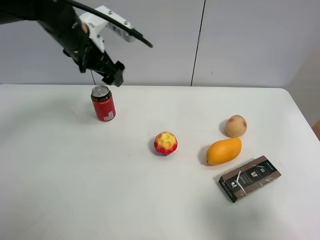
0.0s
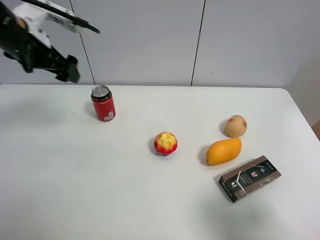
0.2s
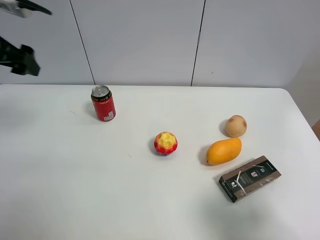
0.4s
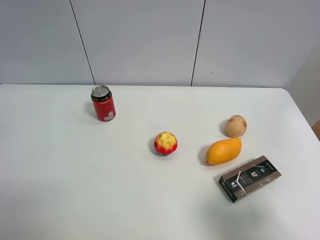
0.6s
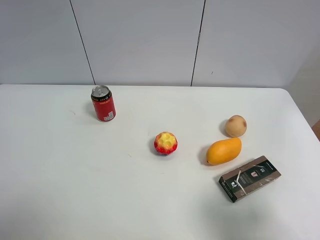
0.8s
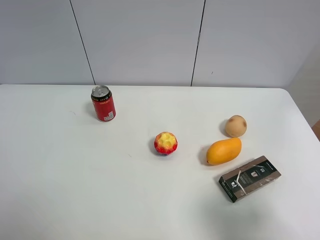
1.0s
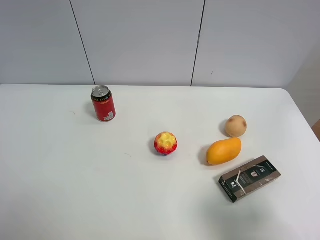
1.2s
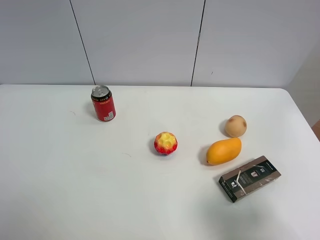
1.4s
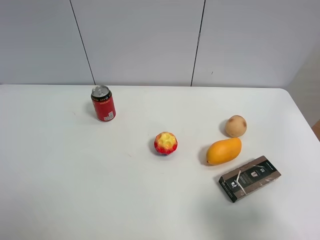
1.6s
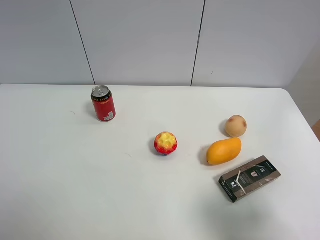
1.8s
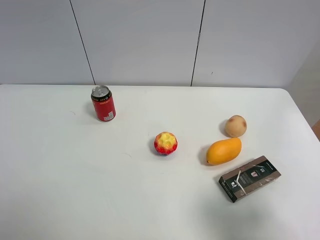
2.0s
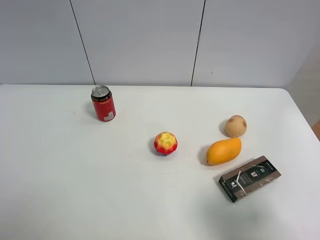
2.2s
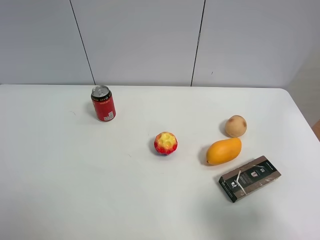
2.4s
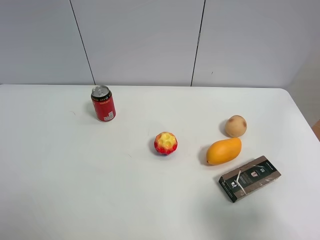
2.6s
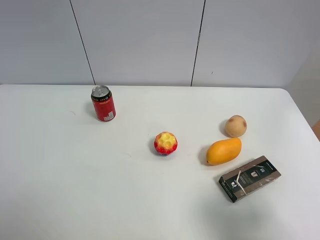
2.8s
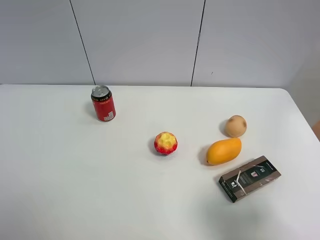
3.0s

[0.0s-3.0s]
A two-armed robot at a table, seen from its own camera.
Task of the whole recording: the gripper move the object.
0.0s to 1.6s: The left gripper moves backward and to the left, roughly 40 cm.
1.6s to 3.0s: Both grippers stay put.

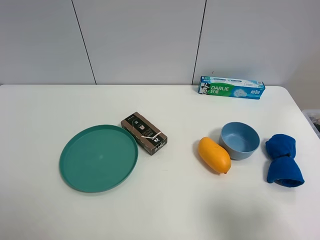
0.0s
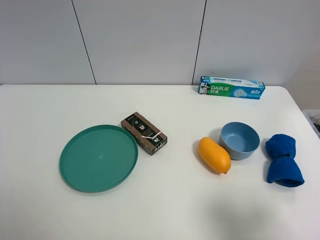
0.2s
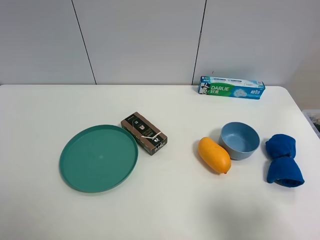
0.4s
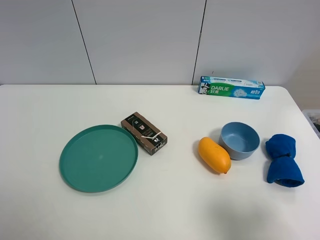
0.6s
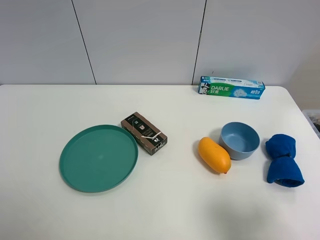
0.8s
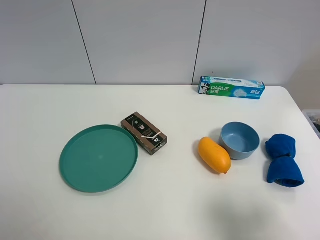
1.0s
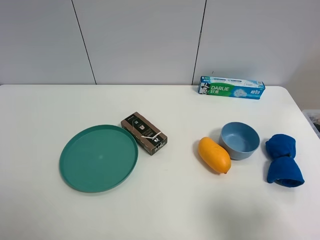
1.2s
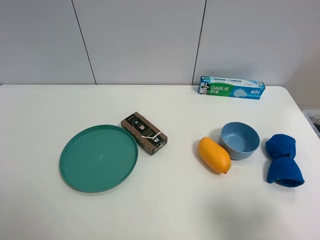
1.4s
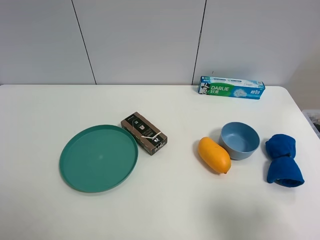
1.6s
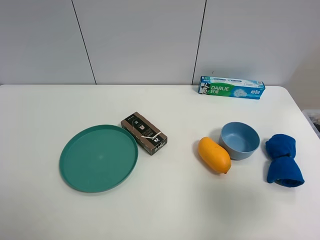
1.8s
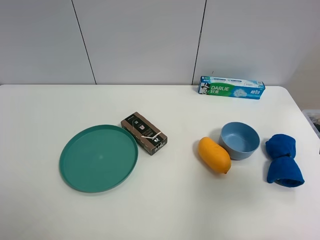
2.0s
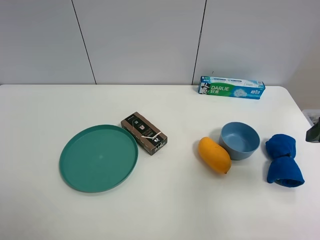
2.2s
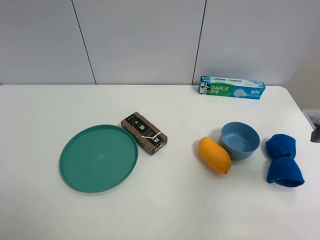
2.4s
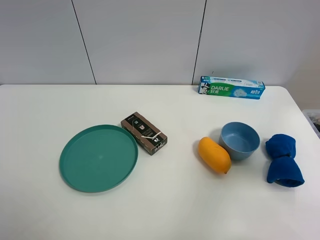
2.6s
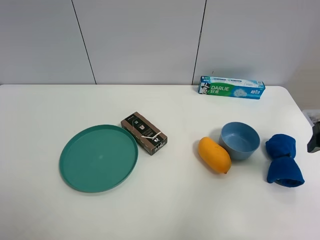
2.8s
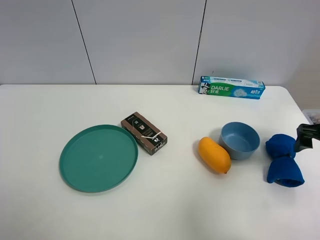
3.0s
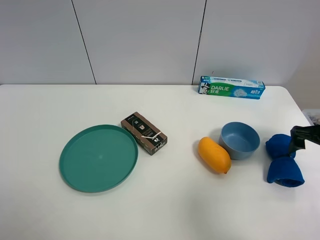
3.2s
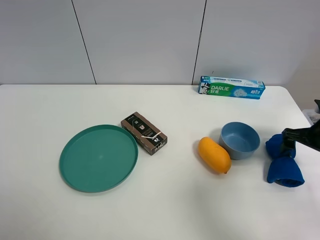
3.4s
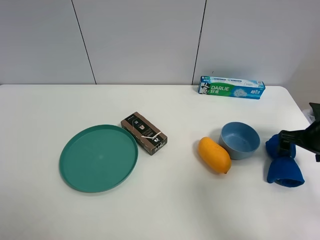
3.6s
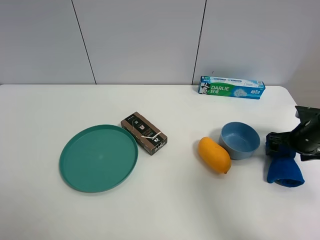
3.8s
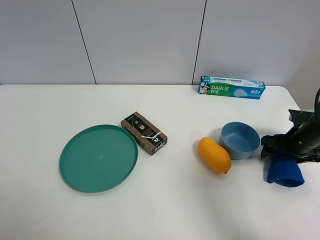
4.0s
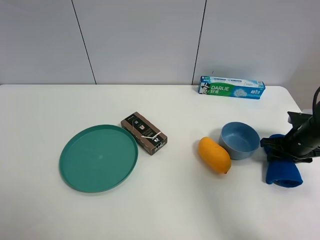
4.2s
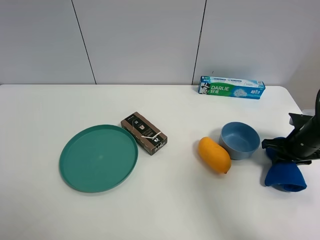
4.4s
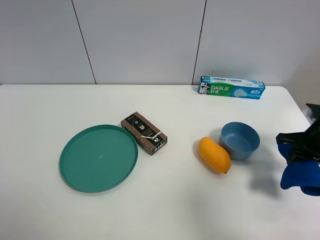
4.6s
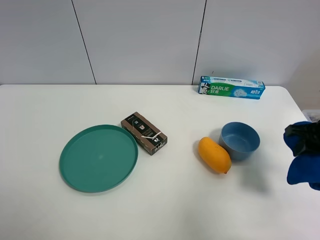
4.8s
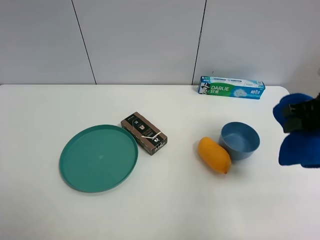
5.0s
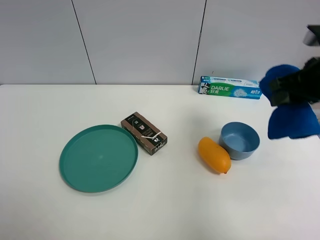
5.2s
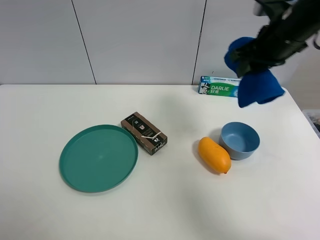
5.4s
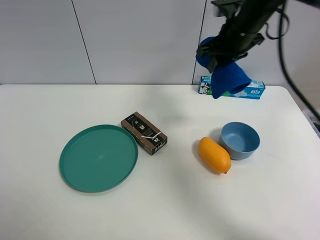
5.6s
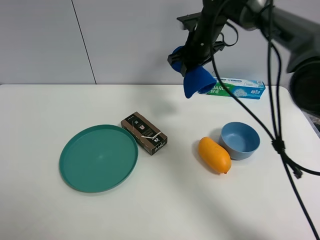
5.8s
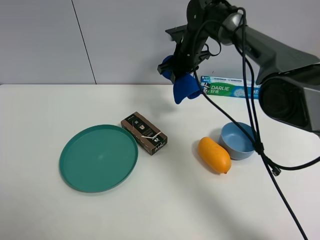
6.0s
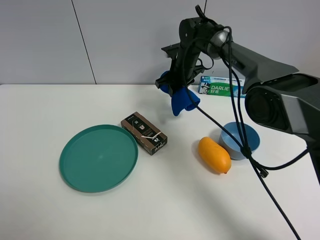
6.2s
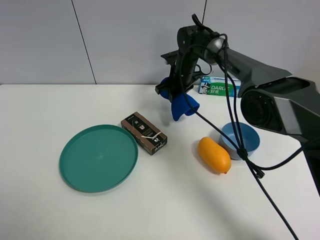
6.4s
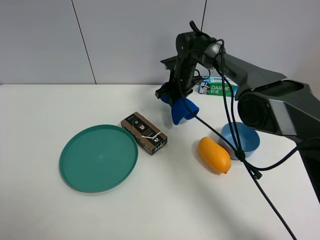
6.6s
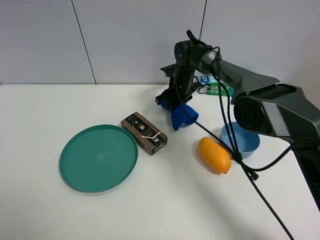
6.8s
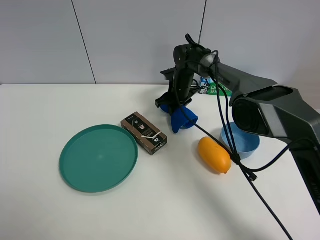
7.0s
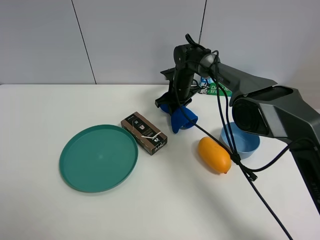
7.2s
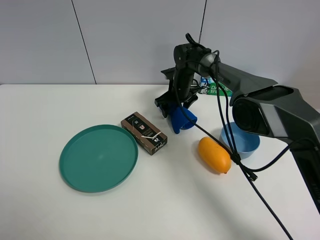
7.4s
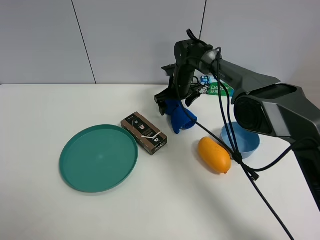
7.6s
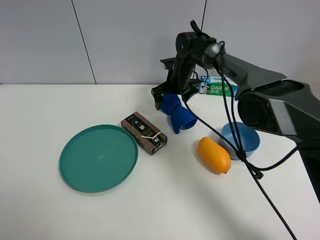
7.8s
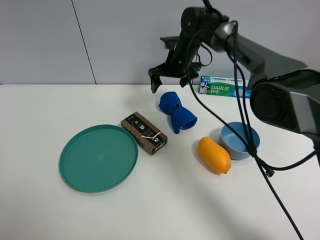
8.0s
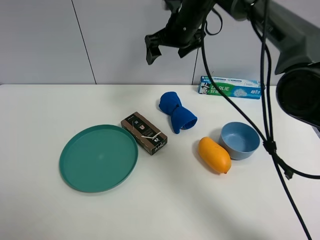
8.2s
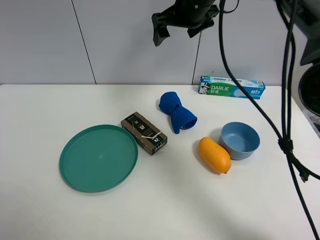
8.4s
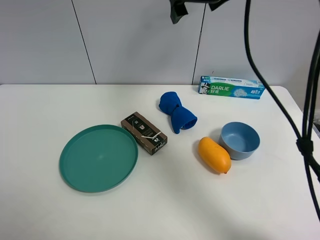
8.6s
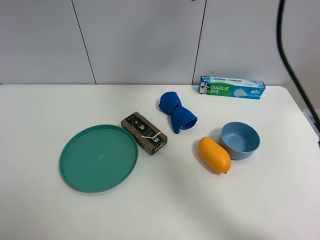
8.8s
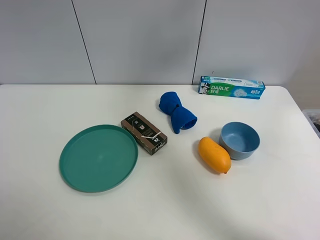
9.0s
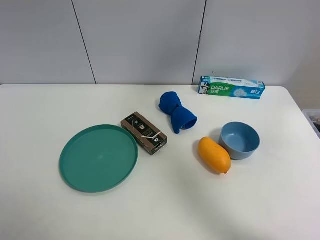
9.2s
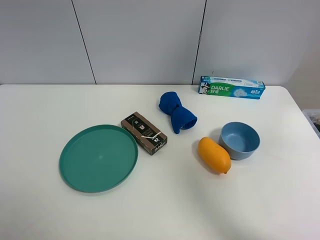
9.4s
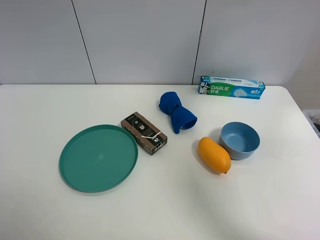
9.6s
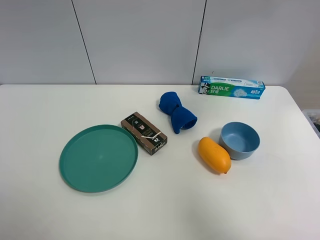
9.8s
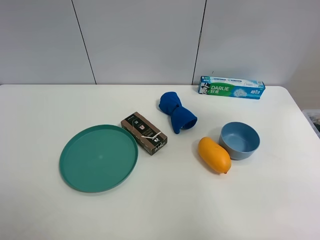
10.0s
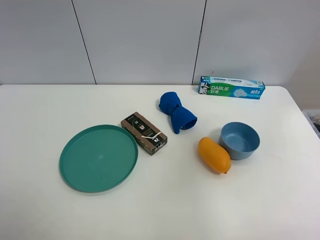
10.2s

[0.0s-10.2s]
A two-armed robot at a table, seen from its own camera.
Task of the whole recording: the gripper move the object.
Step, 0.0s to 4.2s: Grasp the blue towel with the right gripper.
Step, 4.4s to 7.6s: Place the blue towel on the table with the right gripper.
0.0s to 1.4s: Both grippers stay about where they are.
1.4s to 3.0s: The right gripper moves forward, approximately 25 cm.
3.0s to 4.4s: The right gripper shifts about 10 cm downward, and closes.
4.4s to 5.8s: The right gripper goes approximately 35 cm to the left, forward and upward.
5.8s to 7.2s: The right gripper goes roughly 15 cm downward.
7.2s to 8.8s: The right gripper moves upward, approximately 35 cm, and opens.
8.8s to 10.2s: The right gripper travels backward and to the right by roughly 30 cm.

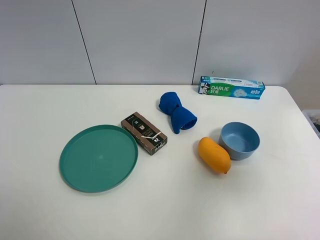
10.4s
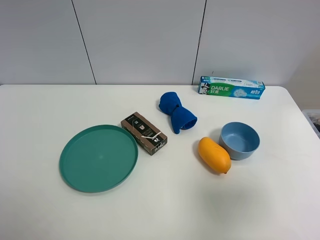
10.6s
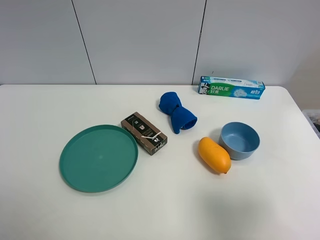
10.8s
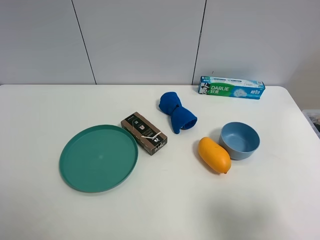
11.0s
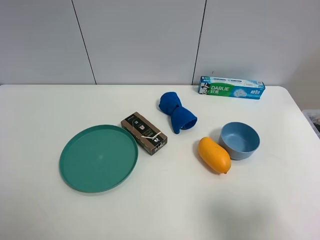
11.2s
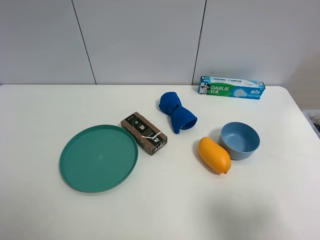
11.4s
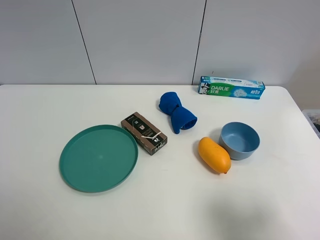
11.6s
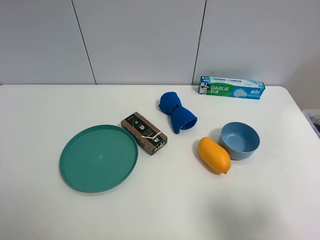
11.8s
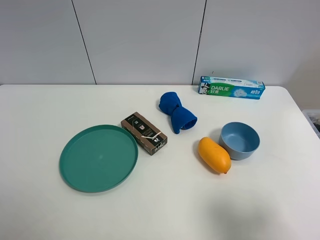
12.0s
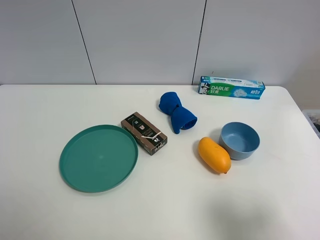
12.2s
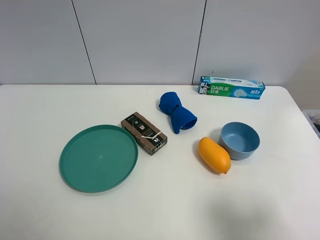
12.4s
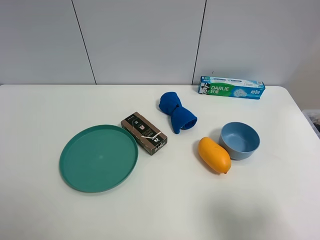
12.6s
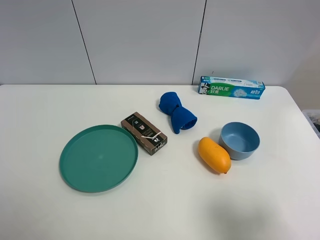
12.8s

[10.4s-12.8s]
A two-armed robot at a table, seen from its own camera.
Task of the whole recording: the gripper move the object.
10.4s to 11.6s: The right gripper moves downward and backward, approximately 10 cm.
11.6s to 12.8s: The two grippers keep their place.

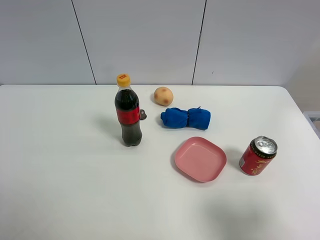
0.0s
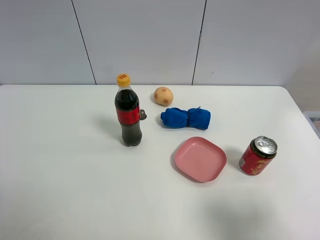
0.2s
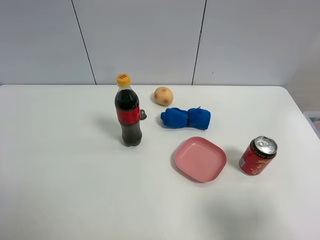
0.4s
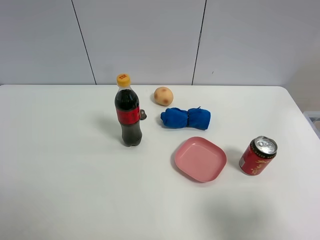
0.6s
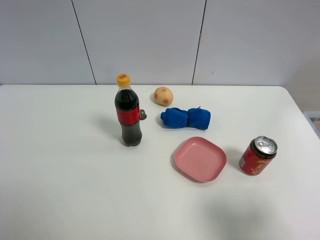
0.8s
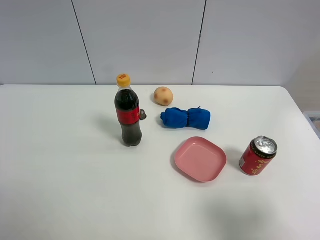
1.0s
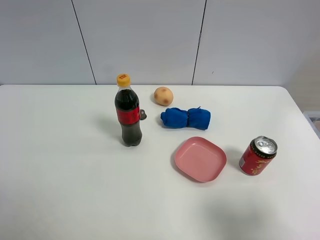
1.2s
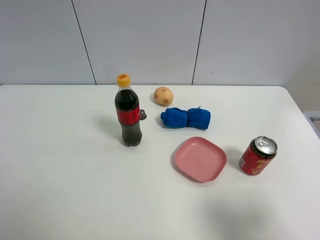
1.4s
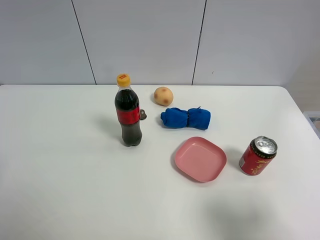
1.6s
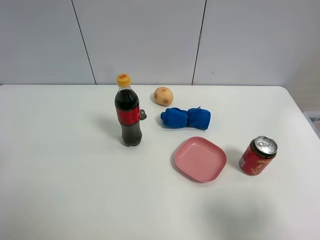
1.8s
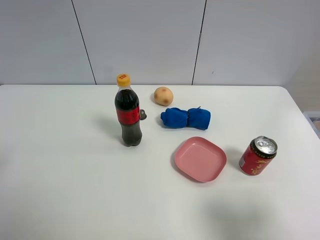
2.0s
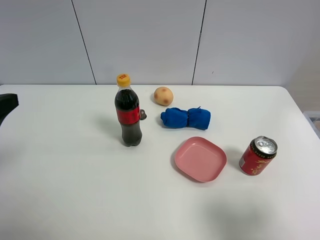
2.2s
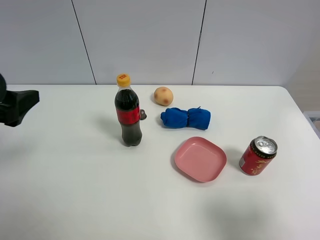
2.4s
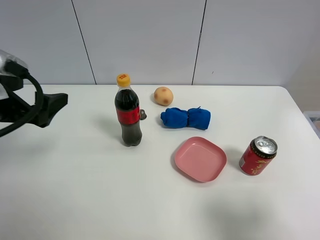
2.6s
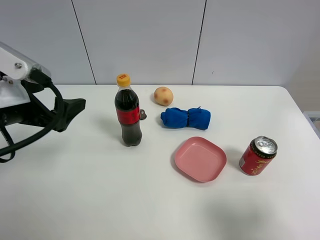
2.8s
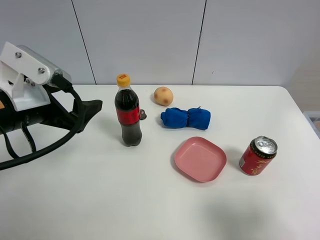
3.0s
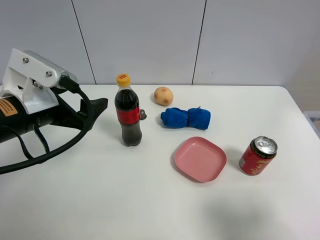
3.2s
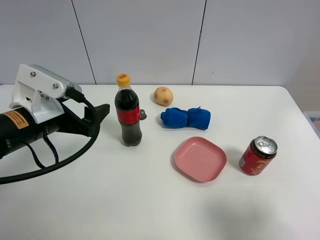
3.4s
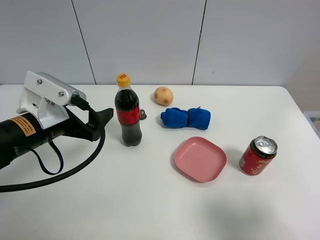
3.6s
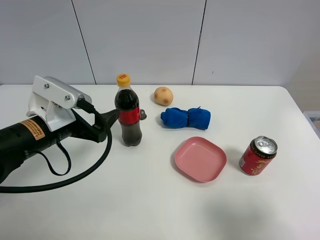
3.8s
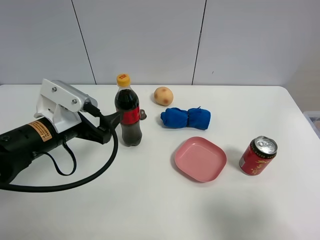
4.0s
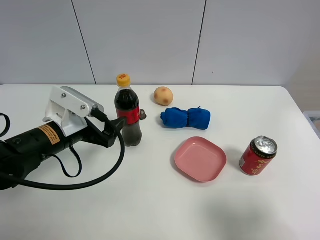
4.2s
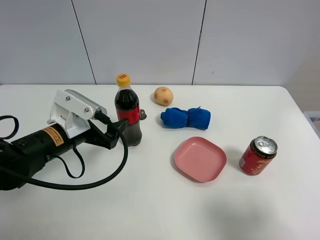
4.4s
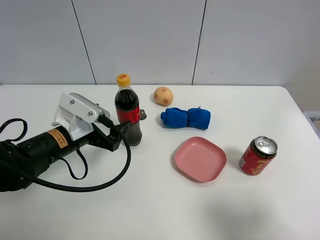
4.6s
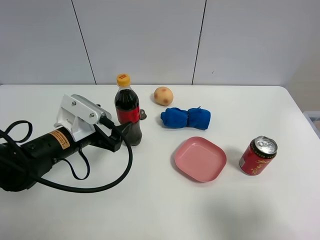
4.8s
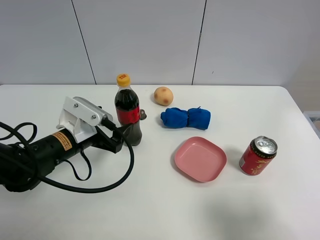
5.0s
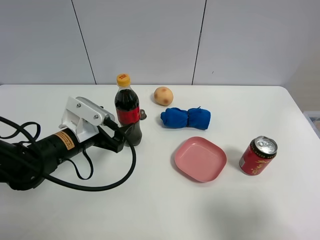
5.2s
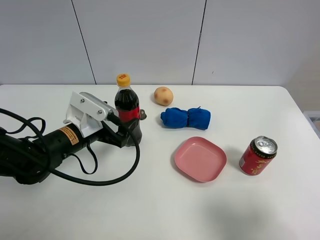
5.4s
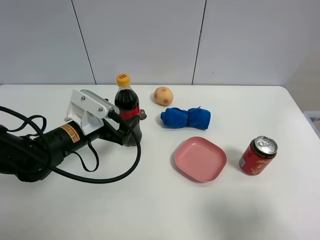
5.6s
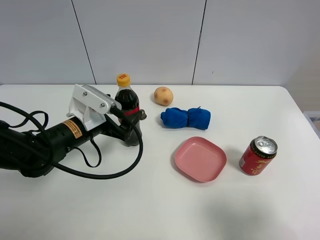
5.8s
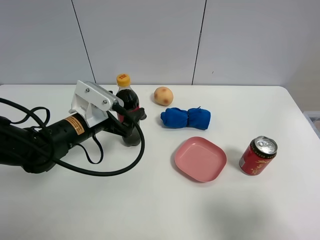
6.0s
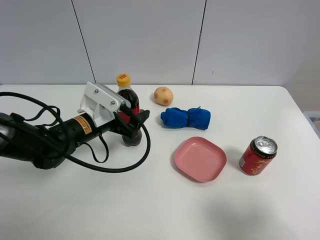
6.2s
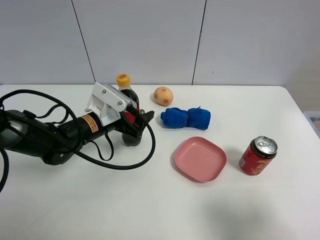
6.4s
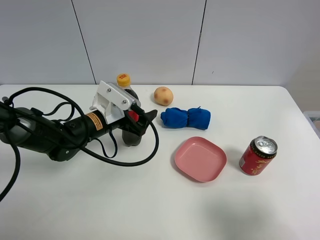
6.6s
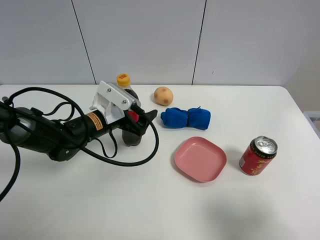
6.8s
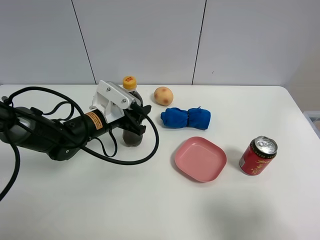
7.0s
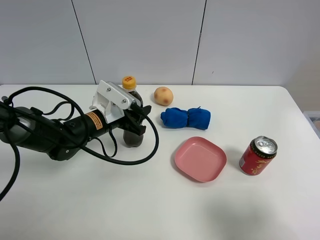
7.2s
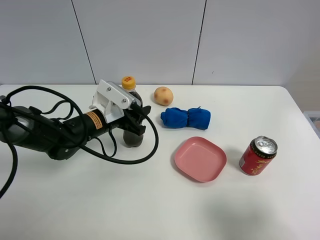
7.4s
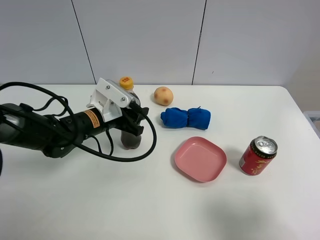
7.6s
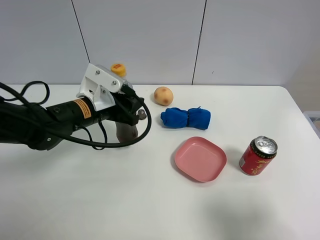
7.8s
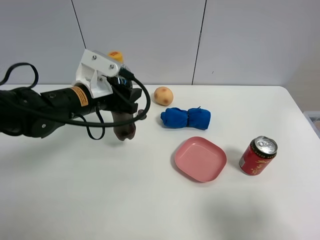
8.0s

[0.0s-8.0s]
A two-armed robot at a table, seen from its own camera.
Task of the whole recording: the gripper move the object.
Step, 0.0s to 7.0s: Grasp the coke with the left gripper.
1.6s to 3.2s: The left gripper shifts approximately 20 cm forward, to the right and downward.
3.2s to 4.8s: The left gripper travels downward by about 10 cm.
4.8s to 6.4s: The left gripper travels forward by roughly 5 cm.
6.4s to 8.0s: The left gripper heads upward, covering approximately 10 cm, and closes its fingers.
